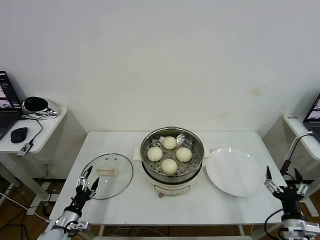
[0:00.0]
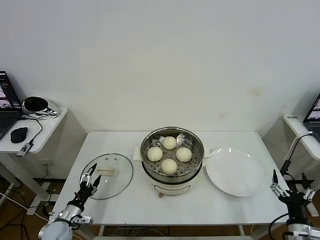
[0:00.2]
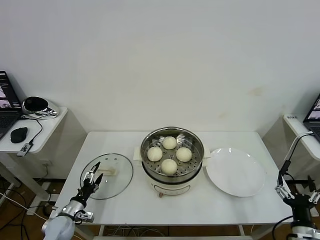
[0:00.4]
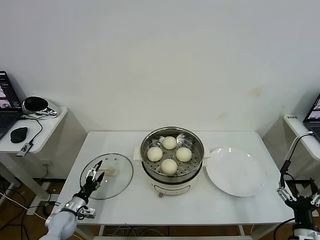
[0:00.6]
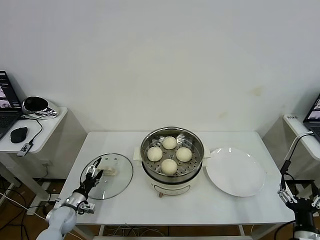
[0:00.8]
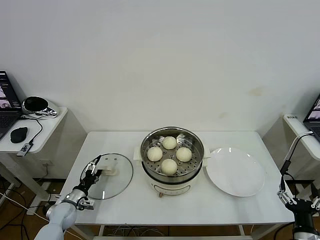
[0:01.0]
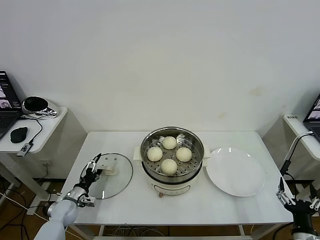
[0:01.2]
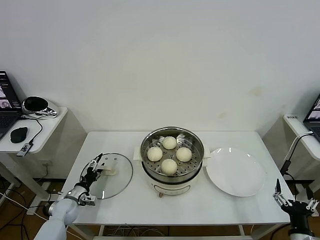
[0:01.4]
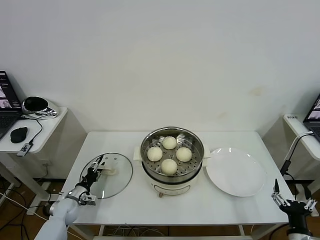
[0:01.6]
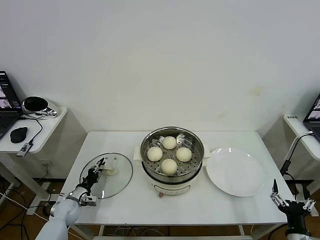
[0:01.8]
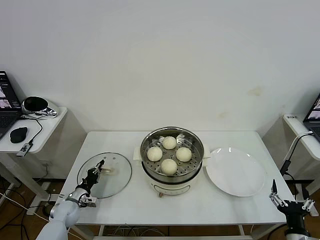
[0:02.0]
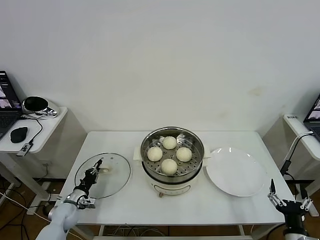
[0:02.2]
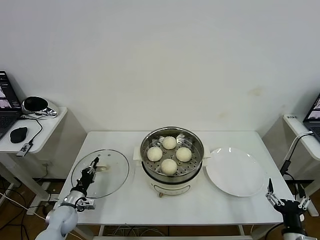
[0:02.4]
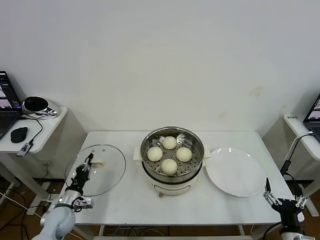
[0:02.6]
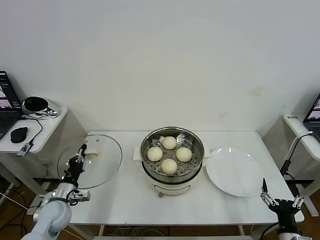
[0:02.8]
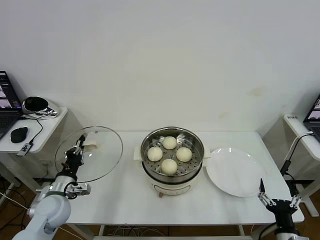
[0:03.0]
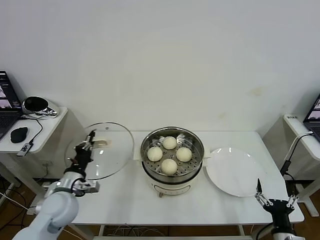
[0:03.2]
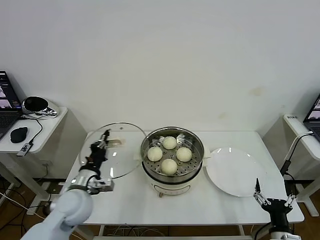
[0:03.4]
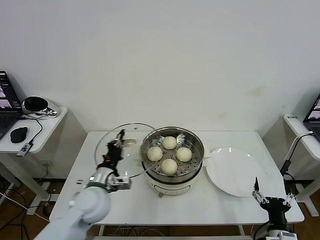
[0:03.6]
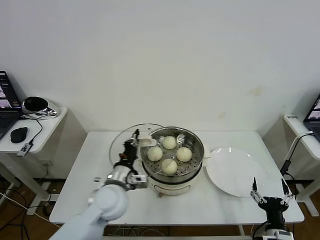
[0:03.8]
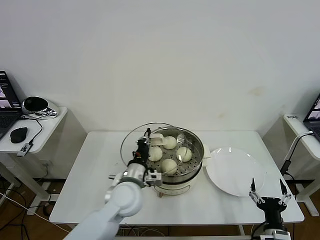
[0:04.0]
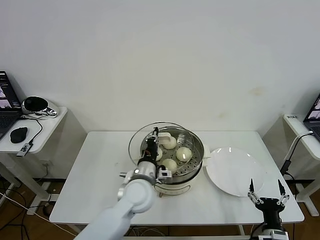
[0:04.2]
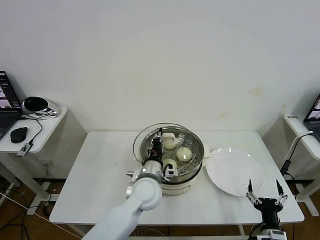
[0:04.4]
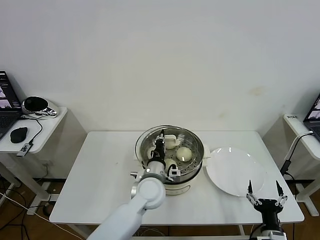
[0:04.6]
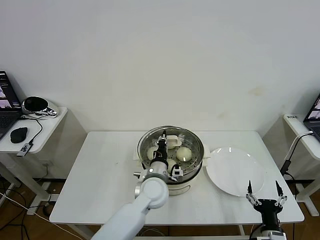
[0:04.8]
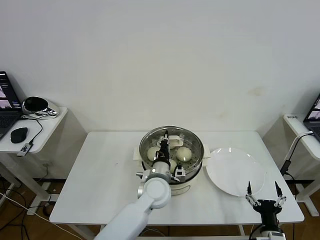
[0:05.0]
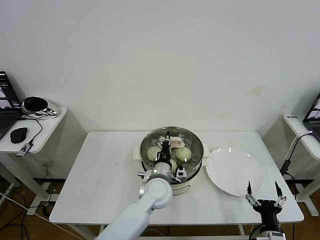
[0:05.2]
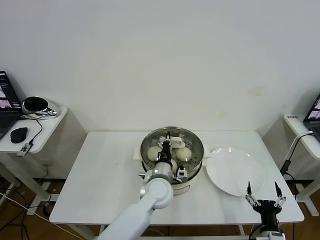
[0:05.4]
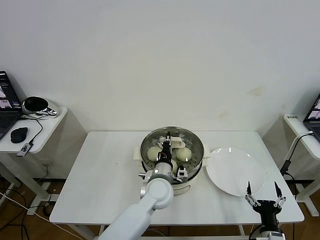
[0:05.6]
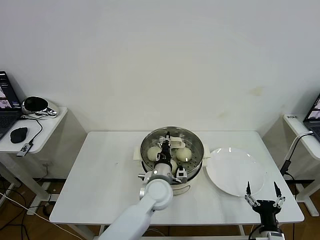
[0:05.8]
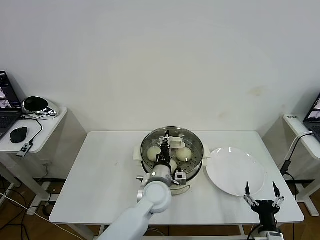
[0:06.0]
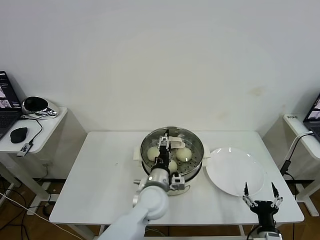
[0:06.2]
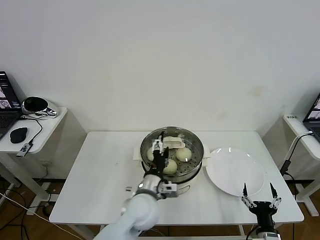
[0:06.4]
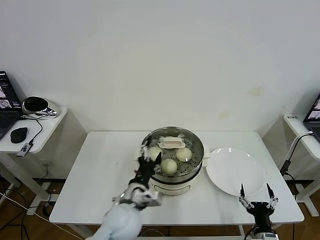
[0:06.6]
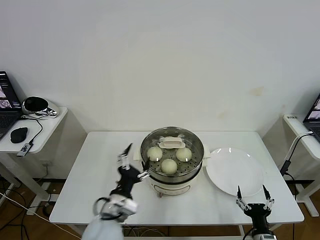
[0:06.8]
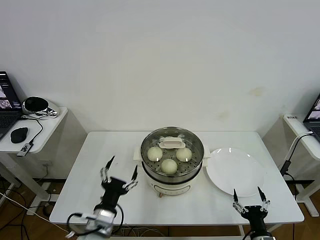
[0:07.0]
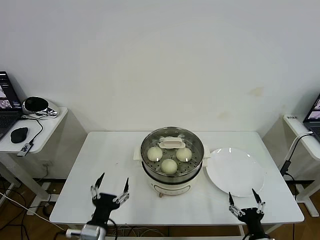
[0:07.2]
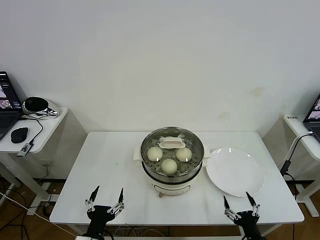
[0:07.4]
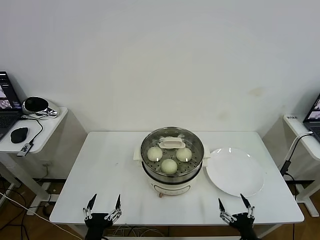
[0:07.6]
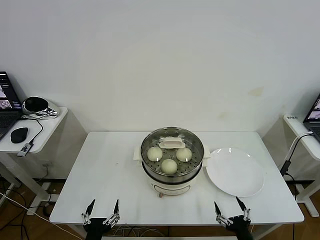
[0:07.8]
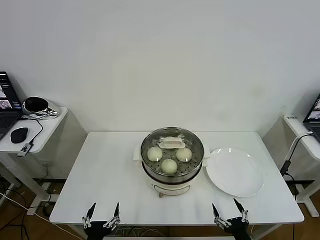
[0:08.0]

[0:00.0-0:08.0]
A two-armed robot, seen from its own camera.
Task of the whole recording: take steamed baozi put them in steamer then cover it.
Step, 0:00.0 to 0:02.0: Grasp the pot lid with left gripper.
Step, 0:02.4 to 0:06.2: Place the pot lid on the steamer with left gripper.
0:00.0 to 0:01.6: The left gripper goes about 15 cm forward, and closes its fingers.
0:01.6 to 0:03.2: The left gripper shifts about 20 cm upward and to the right, and closes.
0:03.2 to 0:04.8: The left gripper heads to the right, covering some 30 cm.
0:04.8 to 0:06.4: The left gripper heads backward, covering roughly 5 cm, and opens its fingers.
0:06.4 to 0:08.0: The left gripper travels backward, to the left and downward by approximately 30 cm.

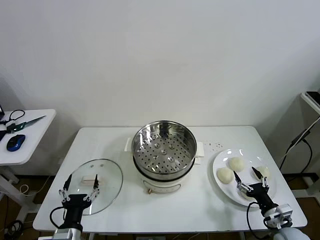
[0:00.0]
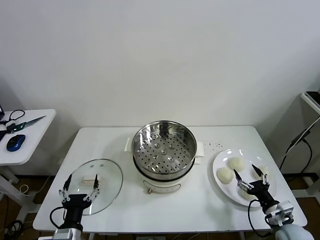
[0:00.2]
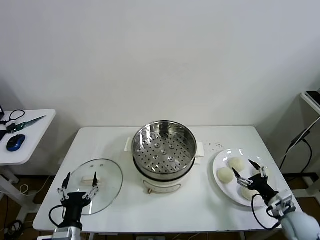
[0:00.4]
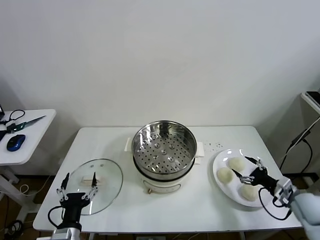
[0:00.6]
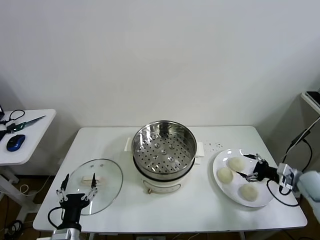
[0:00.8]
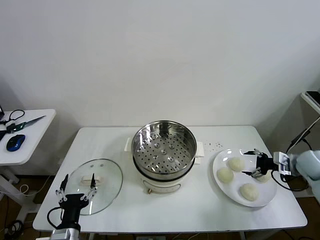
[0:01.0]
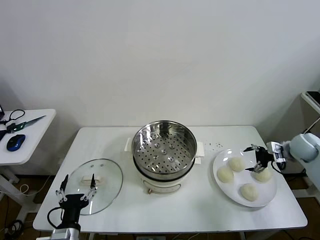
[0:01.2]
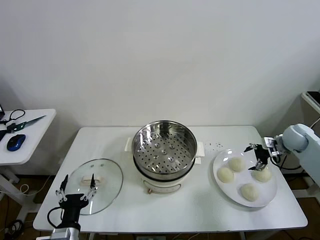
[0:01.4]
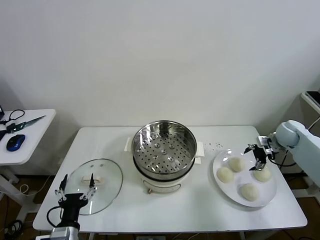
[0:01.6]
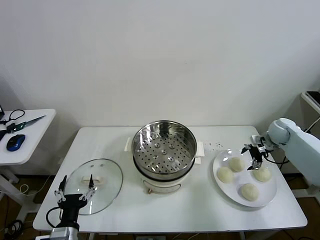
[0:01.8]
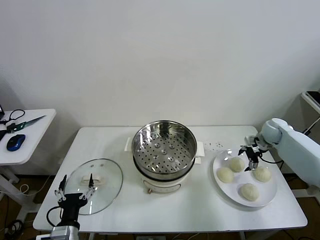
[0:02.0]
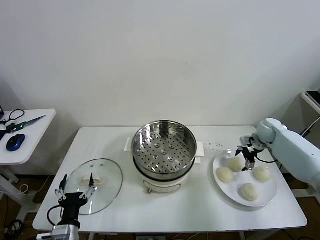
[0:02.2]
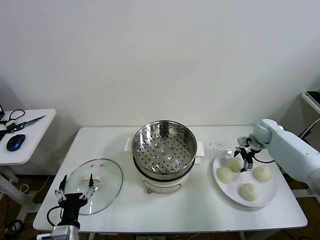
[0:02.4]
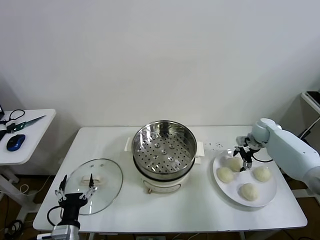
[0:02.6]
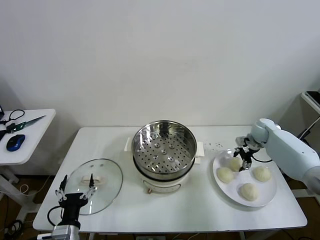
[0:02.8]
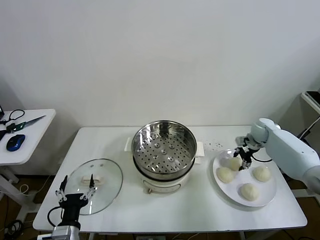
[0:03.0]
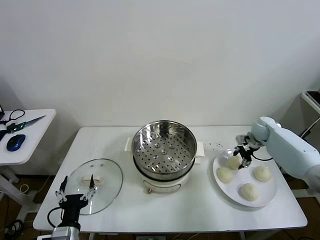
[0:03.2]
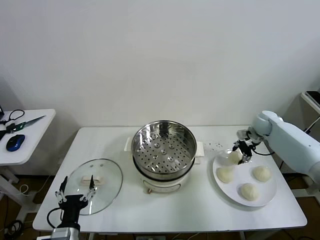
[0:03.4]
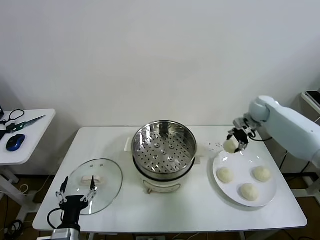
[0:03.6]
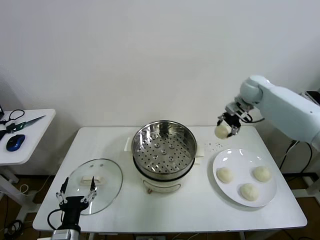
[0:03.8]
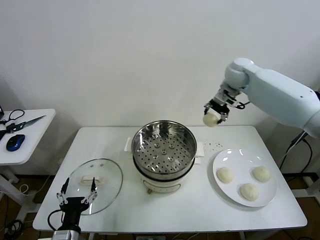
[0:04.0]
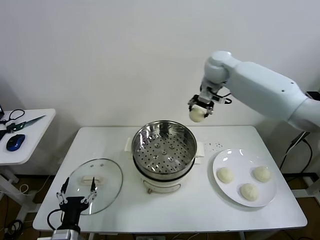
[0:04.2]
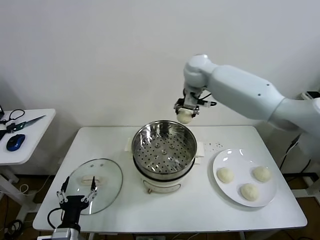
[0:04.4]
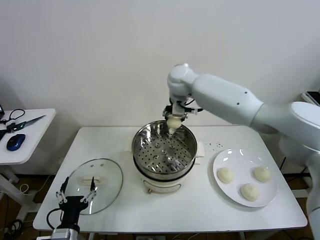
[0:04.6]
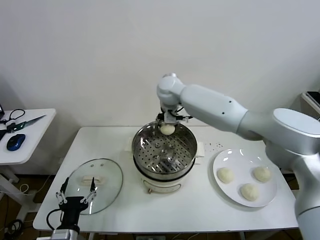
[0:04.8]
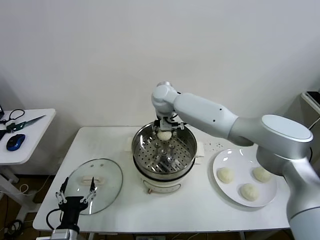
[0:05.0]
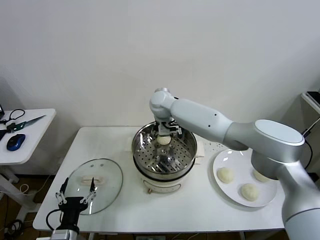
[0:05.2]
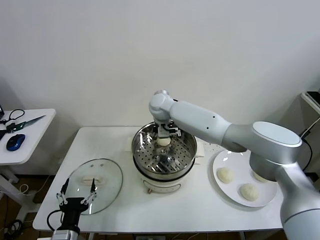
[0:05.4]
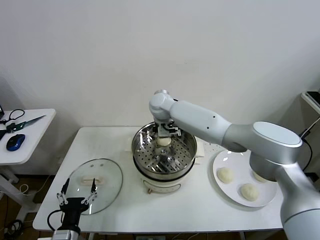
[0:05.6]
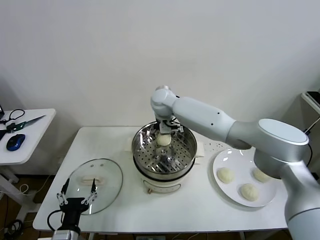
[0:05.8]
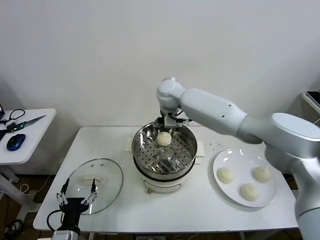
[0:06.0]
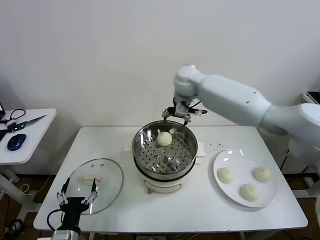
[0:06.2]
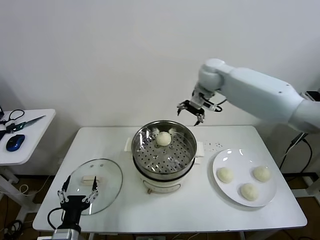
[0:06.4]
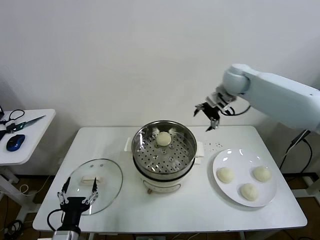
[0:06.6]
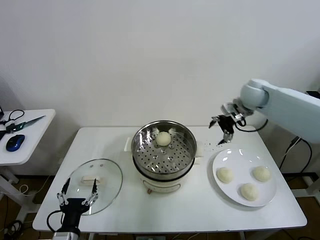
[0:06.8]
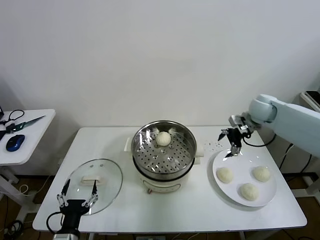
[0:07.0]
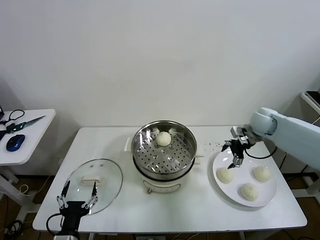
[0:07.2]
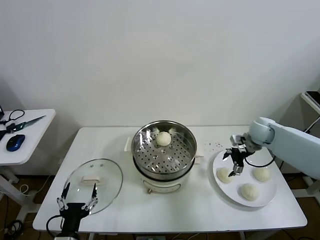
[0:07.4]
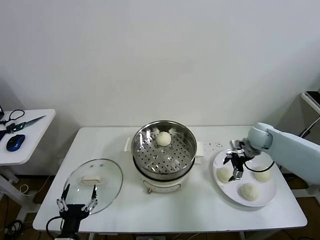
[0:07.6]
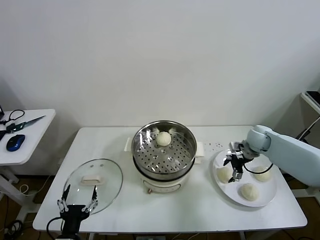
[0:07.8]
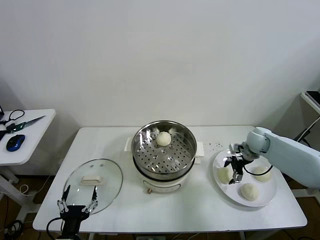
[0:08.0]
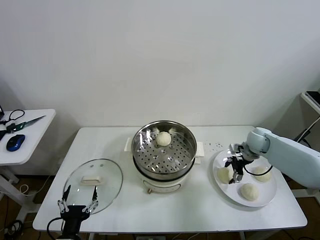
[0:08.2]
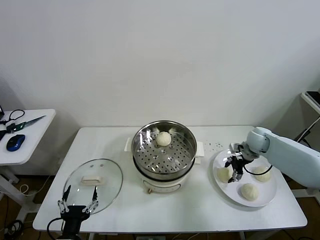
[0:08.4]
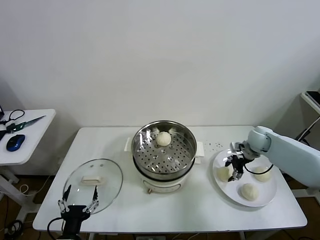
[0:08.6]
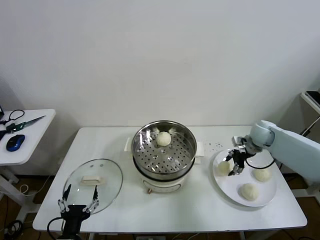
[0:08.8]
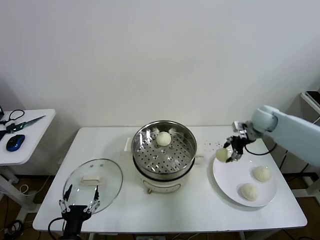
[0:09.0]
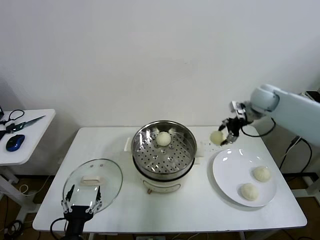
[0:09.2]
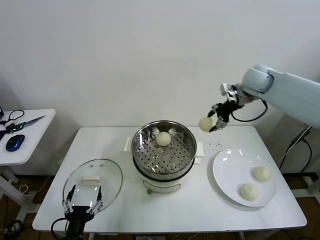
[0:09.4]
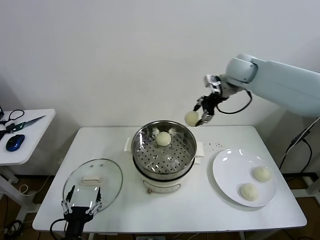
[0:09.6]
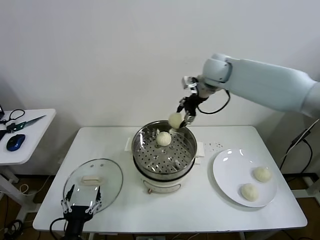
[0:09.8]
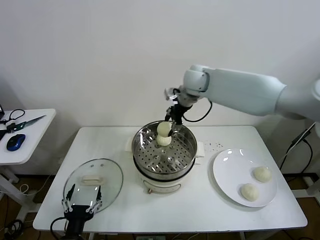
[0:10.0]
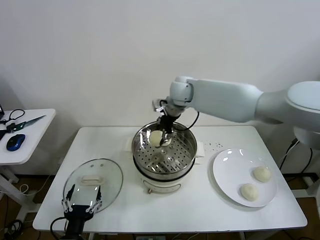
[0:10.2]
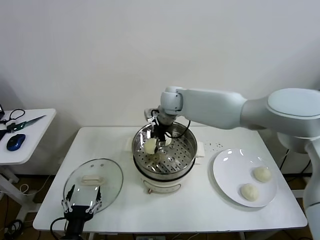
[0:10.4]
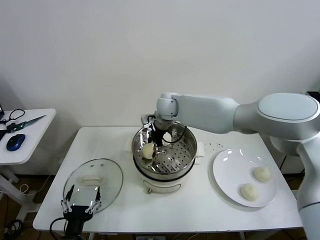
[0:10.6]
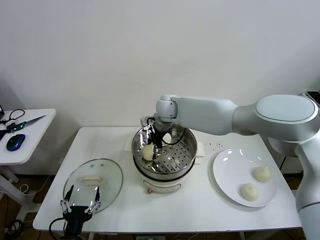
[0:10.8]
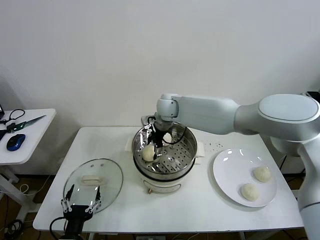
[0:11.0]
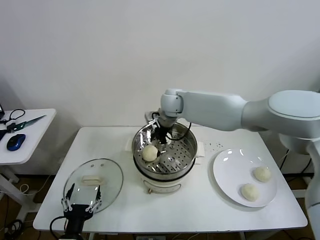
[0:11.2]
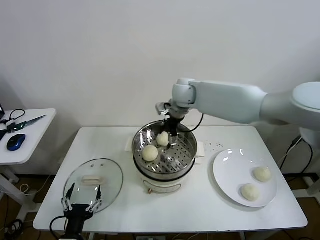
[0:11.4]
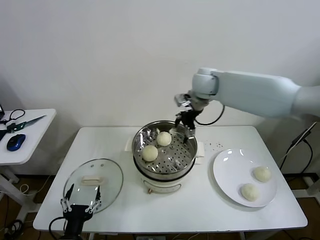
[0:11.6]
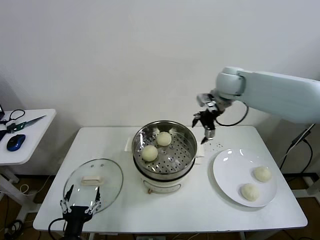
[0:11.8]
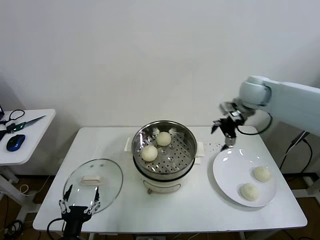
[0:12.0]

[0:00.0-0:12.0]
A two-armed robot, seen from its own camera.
Task of the whole recording: take steamed baozi put them in steamer then cover it.
Step, 0:00.0 to 0:03.0: Grasp the baozi in the plate with right gripper.
Step, 0:03.2 to 0:05.6: Place the baozi on the steamer with right gripper.
Step, 0:05.8 to 0:08.4: Grasp the baozi in the plate with right gripper.
Step, 0:08.6 to 0:11.0: Place the baozi on the steamer with right gripper.
0:01.6 to 0:03.0: The right gripper heads to the left, covering approximately 5 cm, and closes up.
0:03.0 to 0:04.4: The right gripper heads to the left and upward, covering approximately 40 cm.
0:04.4 to 0:06.0: The right gripper reaches approximately 10 cm downward, then returns, and opens.
0:06.0 to 0:07.6: The right gripper goes some 35 cm to the right and downward.
0:07.6 to 0:09.0: The right gripper goes approximately 10 cm upward, and closes.
0:09.0 to 0:10.4: The right gripper goes roughly 35 cm to the left.
0:10.4 to 0:12.0: The right gripper moves to the right, some 30 cm, and opens up.

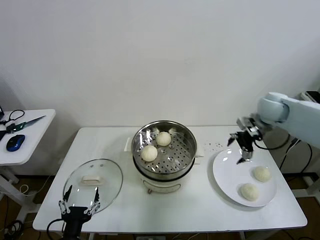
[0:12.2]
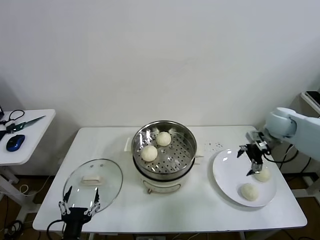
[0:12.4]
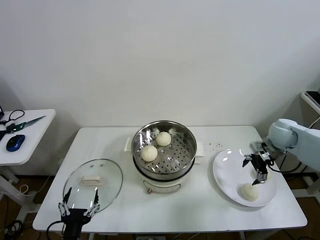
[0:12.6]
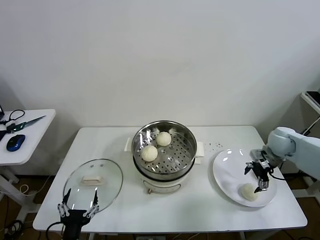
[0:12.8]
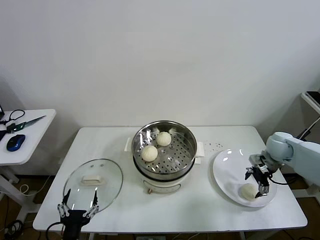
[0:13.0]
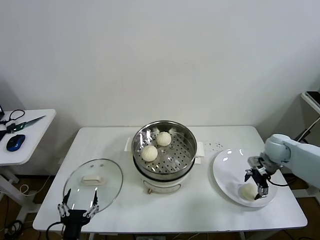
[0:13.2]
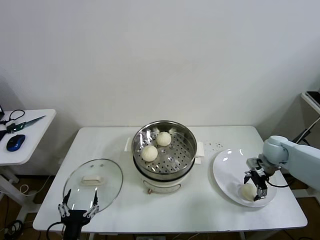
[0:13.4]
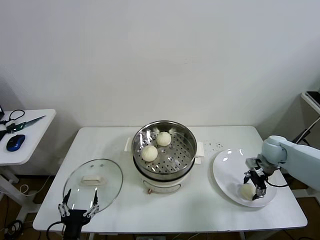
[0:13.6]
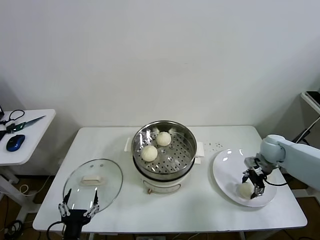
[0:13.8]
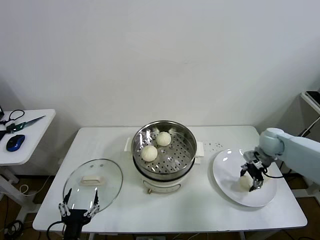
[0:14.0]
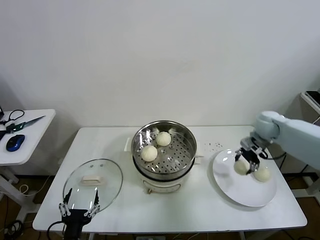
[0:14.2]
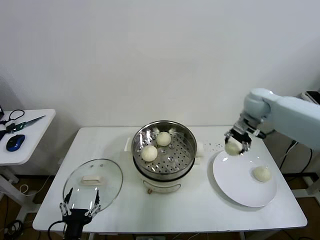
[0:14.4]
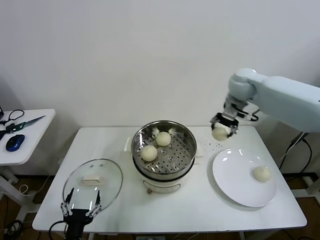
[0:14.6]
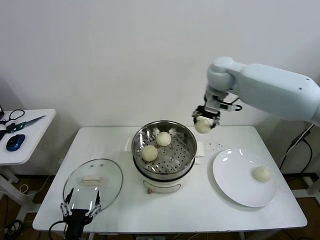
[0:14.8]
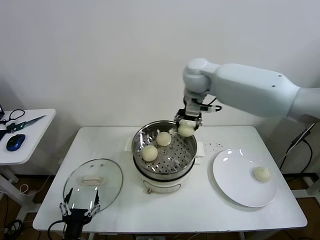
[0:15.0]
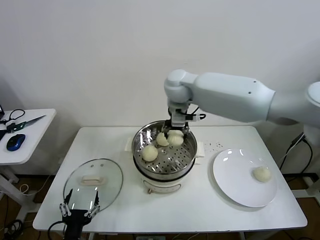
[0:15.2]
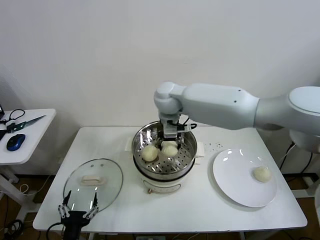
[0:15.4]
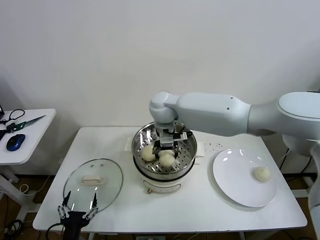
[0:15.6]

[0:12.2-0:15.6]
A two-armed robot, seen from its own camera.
Task of the whole recording: take steamed baozi put them in steamer then cover it.
Step, 0:12.2 to 0:13.6: Grasp the baozi in the plate with right gripper.
0:12.2 to 0:13.8: The right gripper moves downward, some 15 cm, and closes.
0:13.8 to 0:15.6: The right gripper is displaced to the left by approximately 40 cm.
